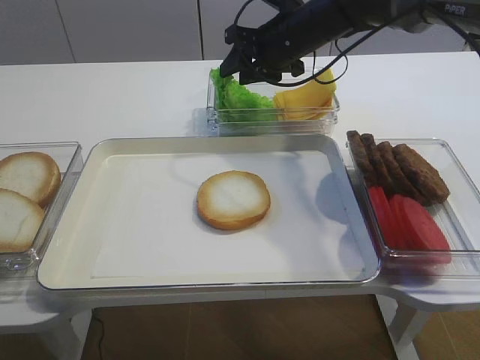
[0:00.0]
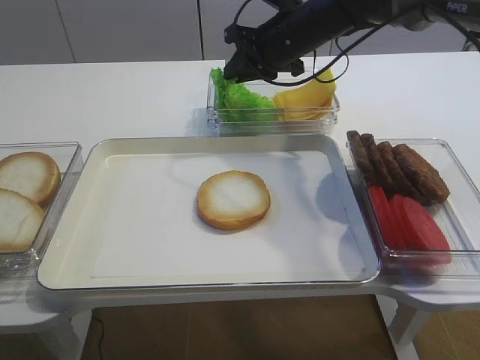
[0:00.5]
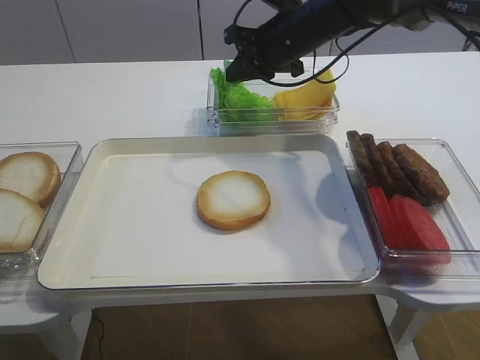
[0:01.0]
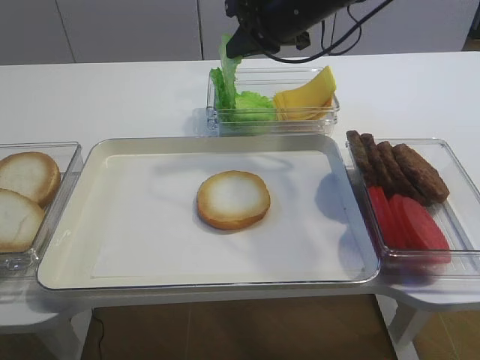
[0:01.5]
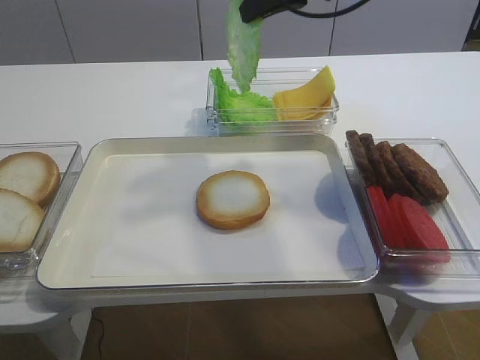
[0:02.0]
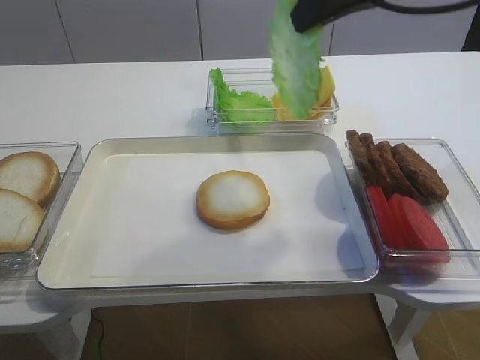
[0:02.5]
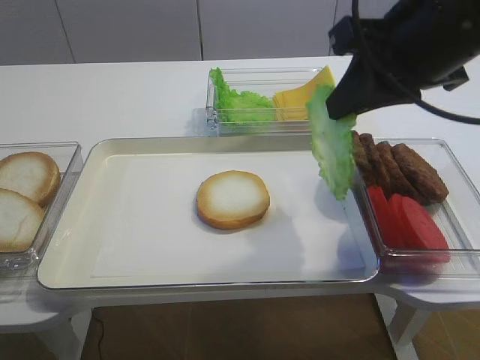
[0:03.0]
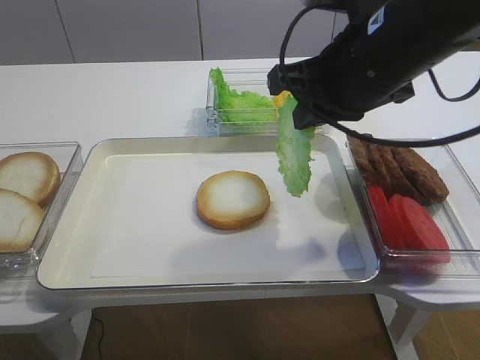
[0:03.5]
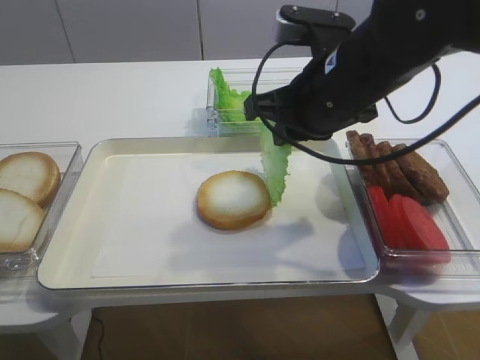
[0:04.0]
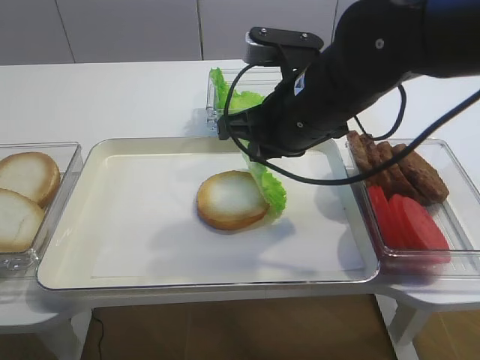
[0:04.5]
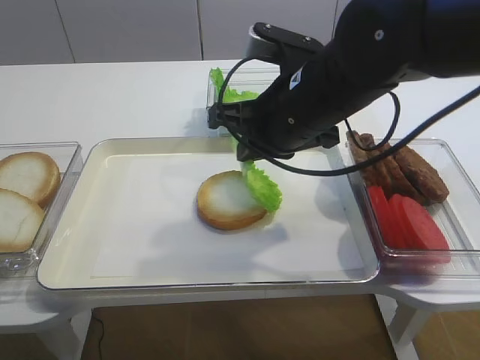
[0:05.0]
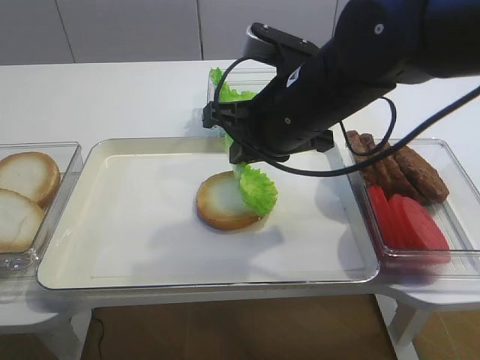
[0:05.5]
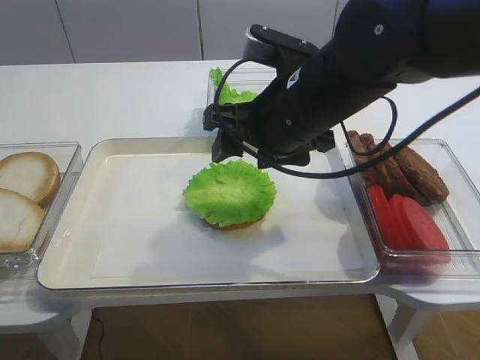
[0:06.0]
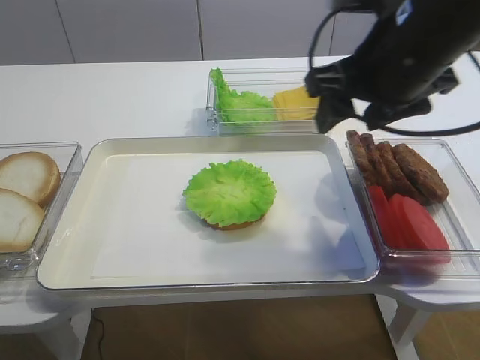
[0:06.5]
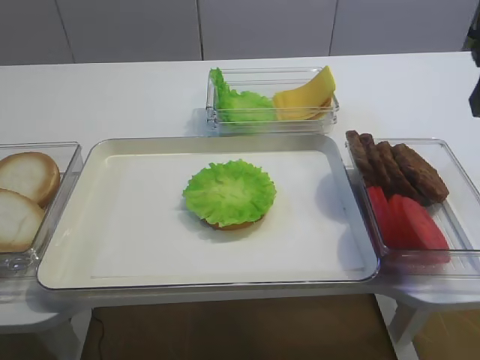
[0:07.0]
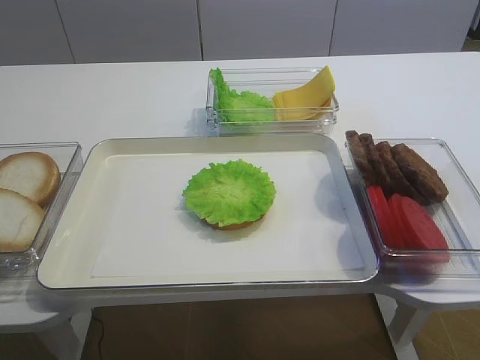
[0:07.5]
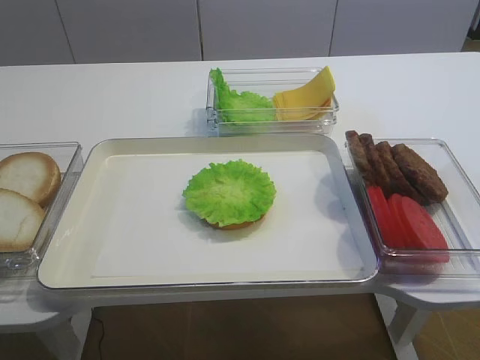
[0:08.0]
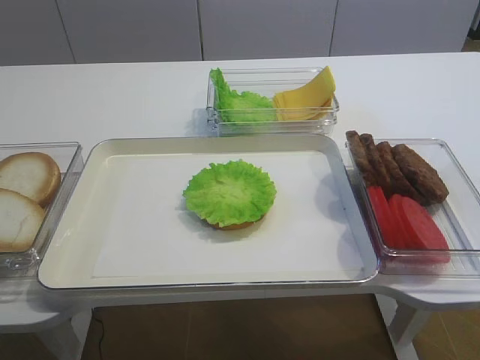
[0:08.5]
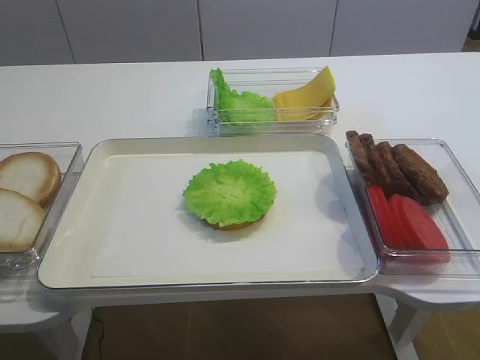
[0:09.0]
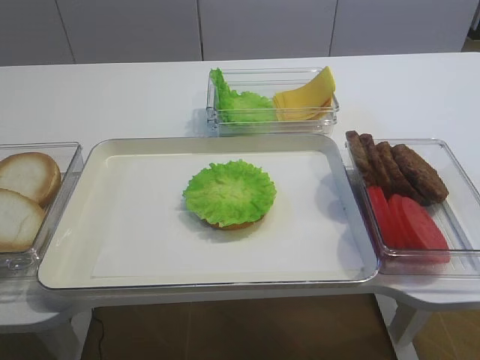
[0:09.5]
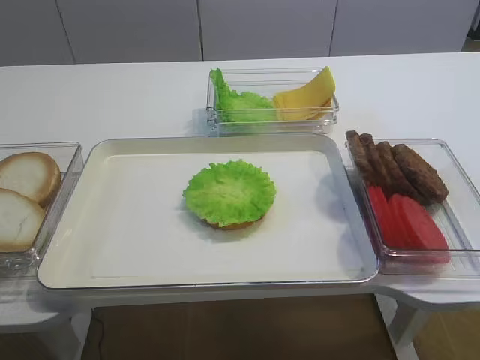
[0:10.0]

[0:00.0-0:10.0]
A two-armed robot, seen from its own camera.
Step, 0:02.0 to 0:05.5: Place the lettuce leaf on the bread slice with the right gripper.
0:00.0 to 0:02.0: The right gripper heads upward and backward, covering some 15 cm, and closes up.
0:02.0 to 0:04.0: The right gripper moves backward and downward, about 15 cm.
0:04.0 to 0:06.0: The right gripper opens its fingers.
0:06.0 to 0:08.0: The right gripper is displaced backward and to the right by approximately 35 cm.

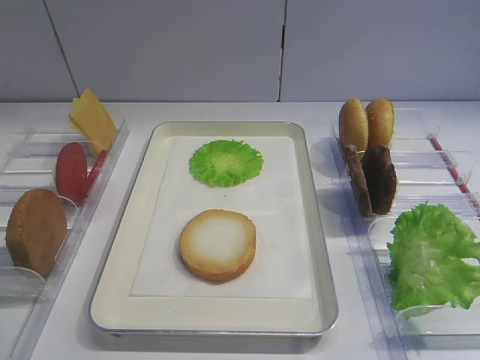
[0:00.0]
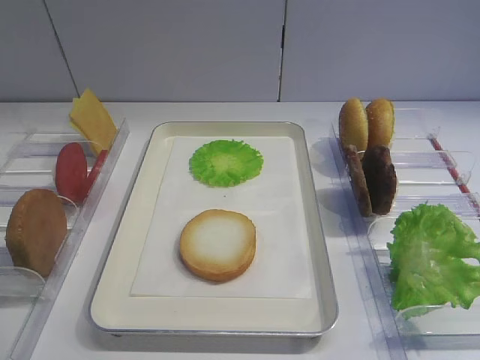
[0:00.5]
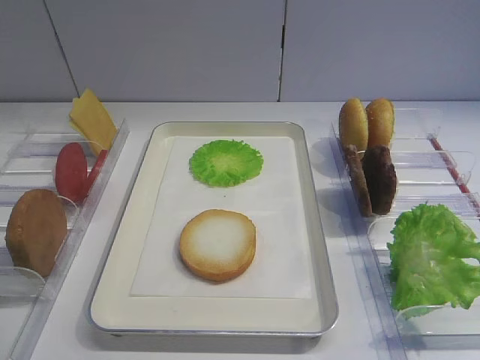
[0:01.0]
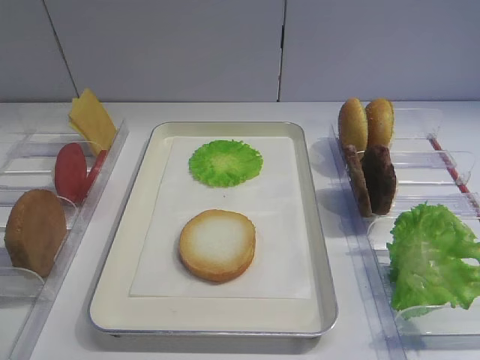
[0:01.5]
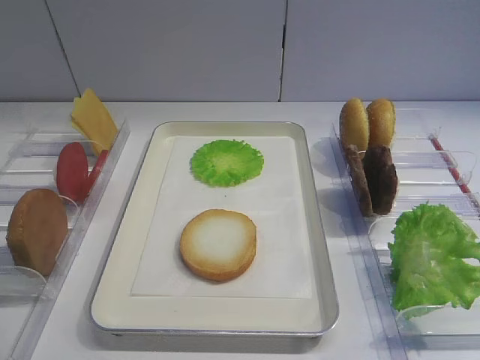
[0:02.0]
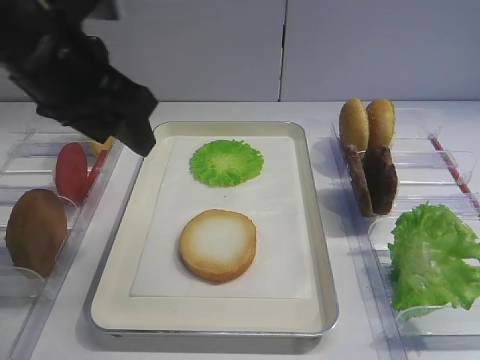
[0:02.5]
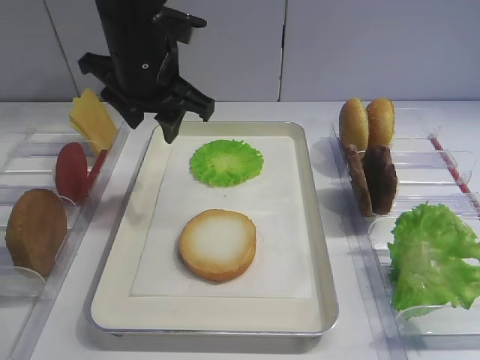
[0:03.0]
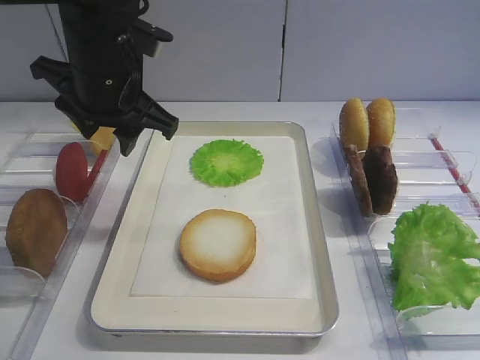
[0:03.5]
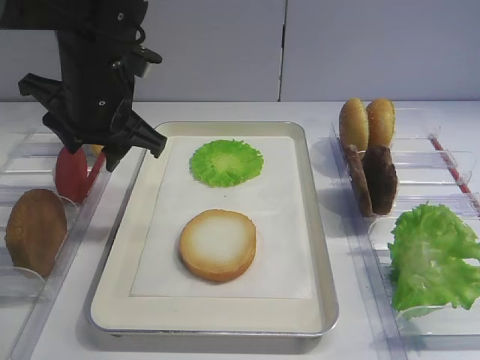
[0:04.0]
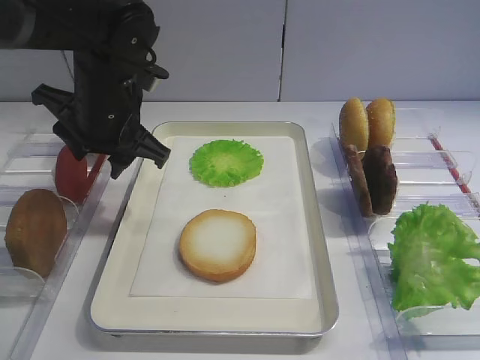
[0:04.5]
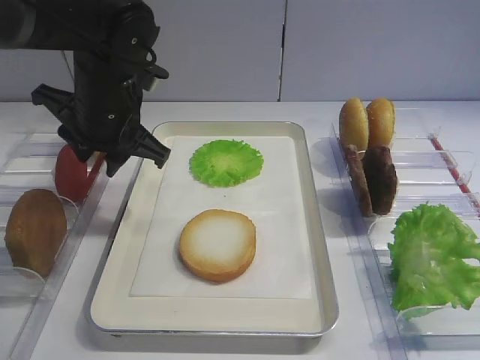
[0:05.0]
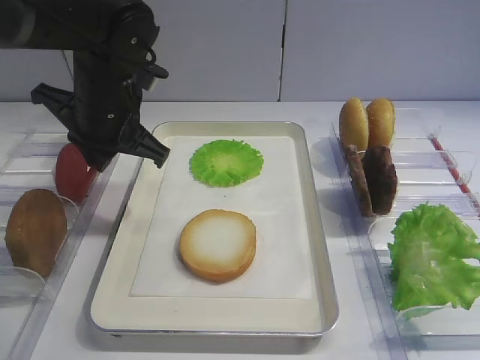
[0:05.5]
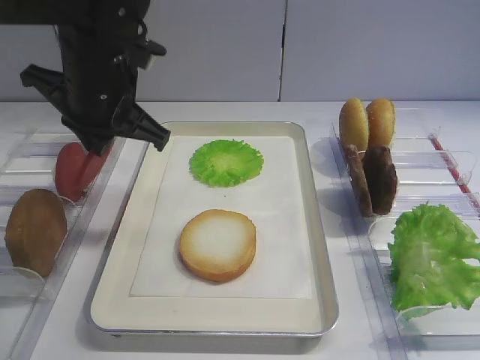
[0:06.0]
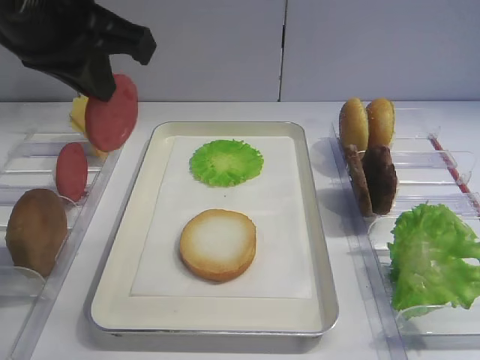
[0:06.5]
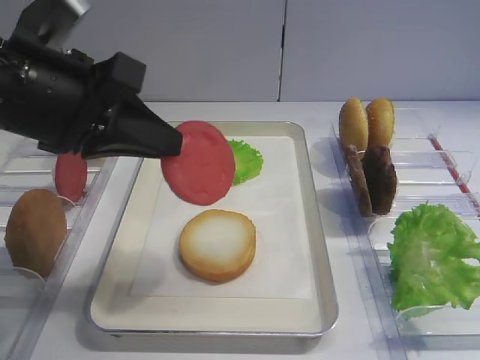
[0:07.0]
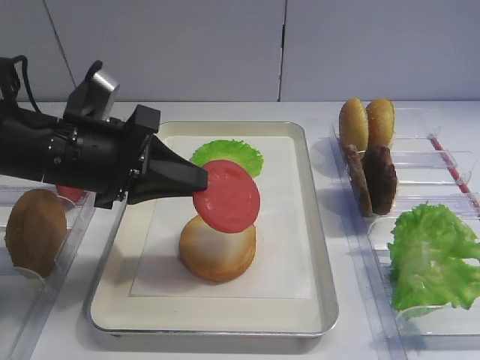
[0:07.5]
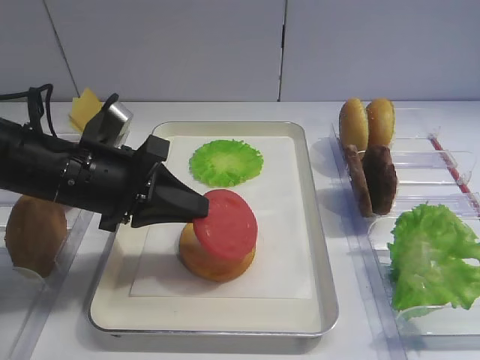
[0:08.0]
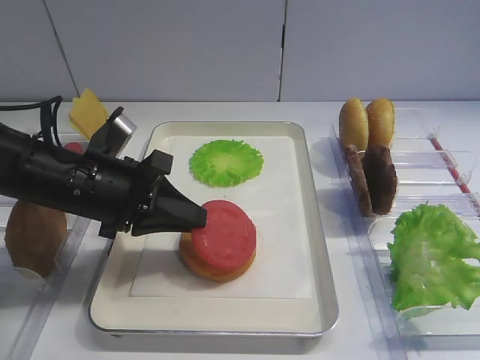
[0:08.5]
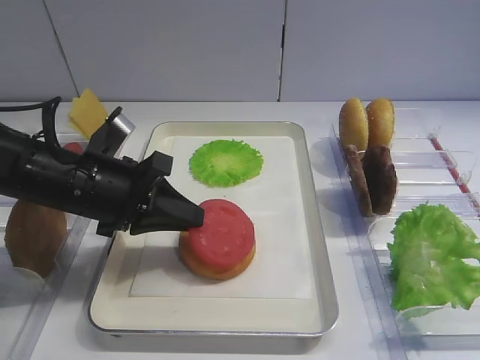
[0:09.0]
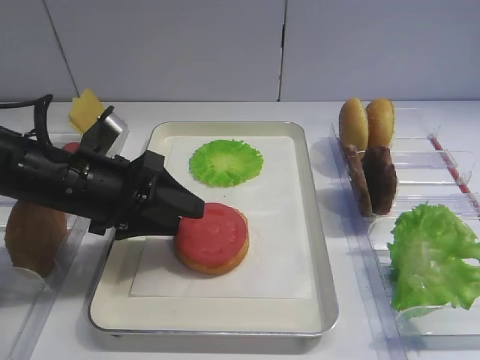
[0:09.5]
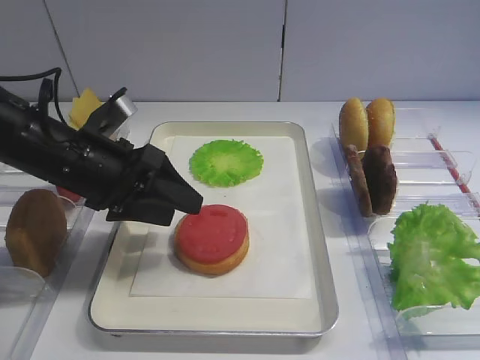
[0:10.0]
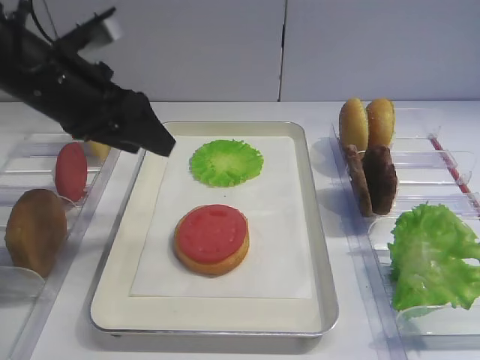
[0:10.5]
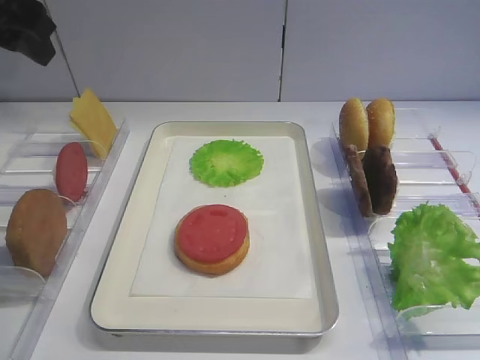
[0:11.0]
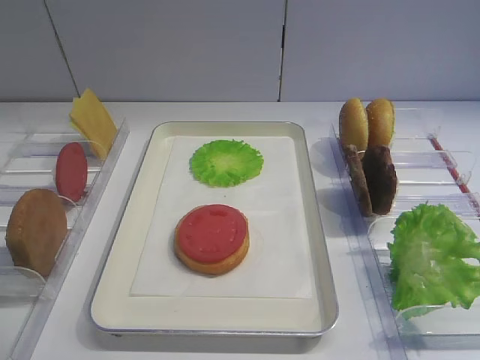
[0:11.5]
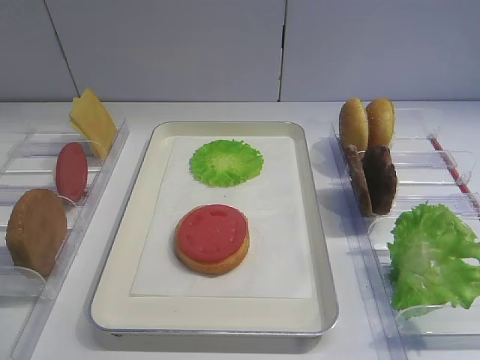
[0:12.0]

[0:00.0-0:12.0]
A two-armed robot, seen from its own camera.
Step, 0:00.0 to 0:06.0: Pick up the tomato slice with the left gripper.
Step, 0:06.5 to 0:09.5: Place the tomato slice on the bread slice with the left gripper.
0:02.0 to 0:04.0: The left gripper heads forward and to the right, covering about 30 cm.
0:04.0 to 0:06.0: The left gripper closes its fingers.
0:06.0 to 0:08.0: The left gripper goes some 10 cm downward and backward.
0:08.0 to 0:10.0: The left gripper opens its fingers.
0:10.0 to 0:12.0: The left gripper shifts some 30 cm backward, upward and to the left.

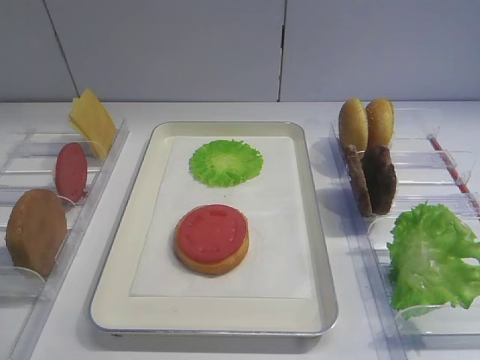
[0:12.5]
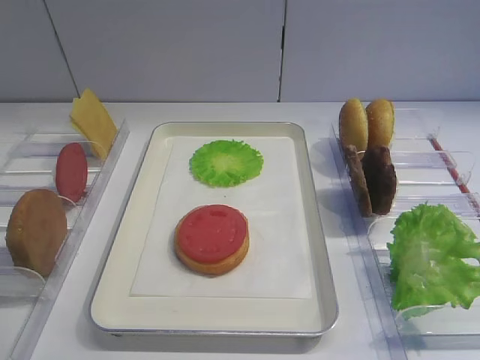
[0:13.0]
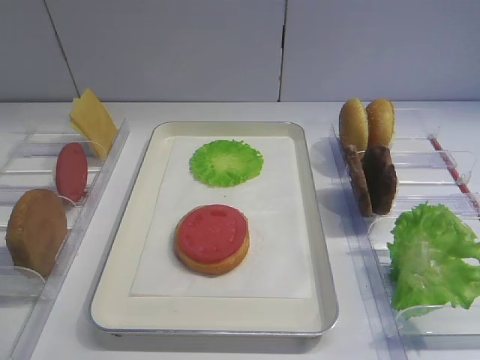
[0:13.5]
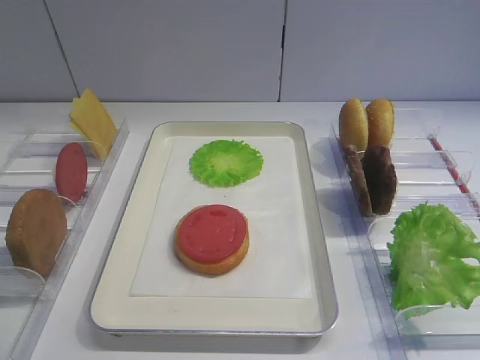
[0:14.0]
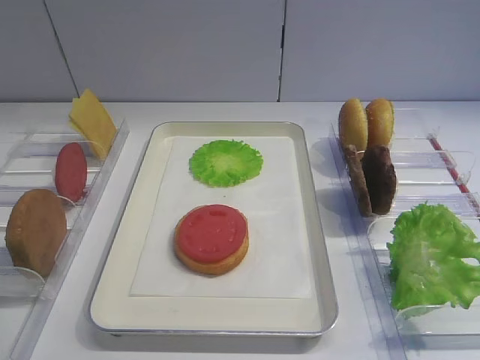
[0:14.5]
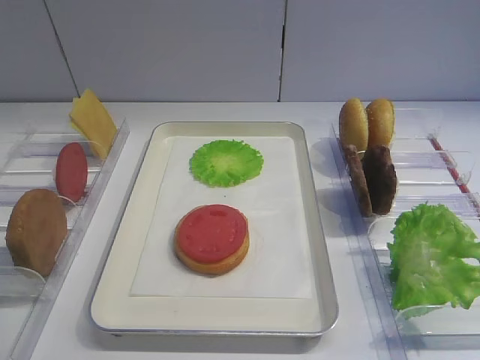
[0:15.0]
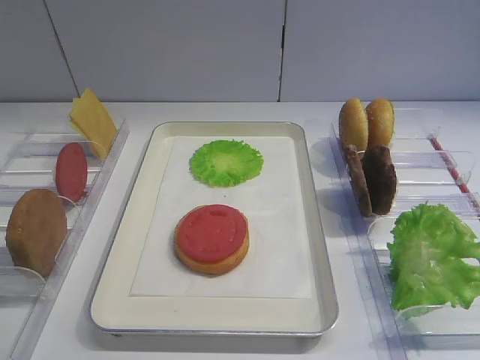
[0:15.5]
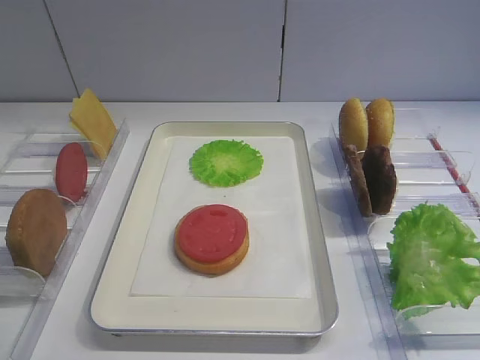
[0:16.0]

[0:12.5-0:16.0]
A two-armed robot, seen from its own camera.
0:14.5 to 0:16.0: Both grippers stay put.
